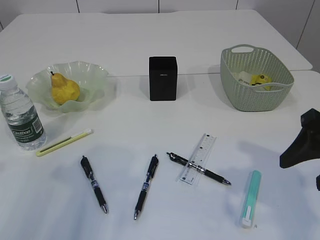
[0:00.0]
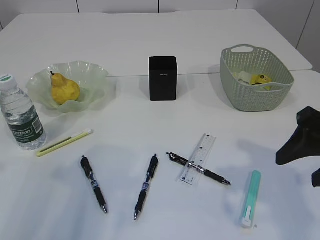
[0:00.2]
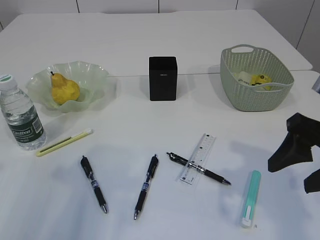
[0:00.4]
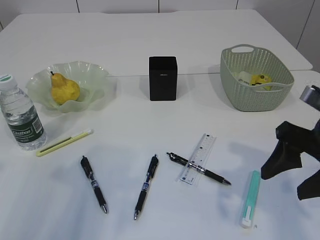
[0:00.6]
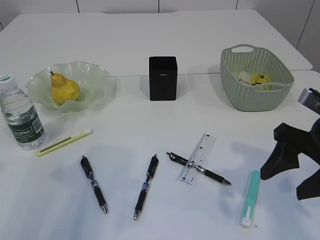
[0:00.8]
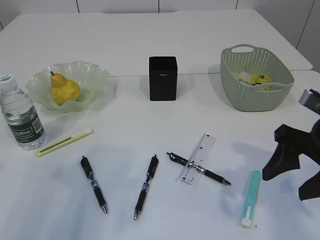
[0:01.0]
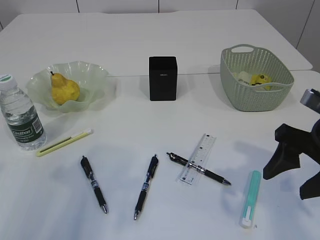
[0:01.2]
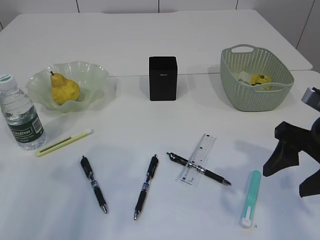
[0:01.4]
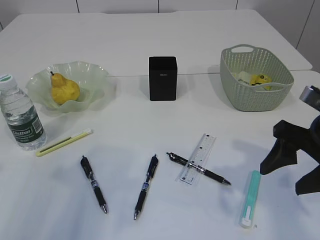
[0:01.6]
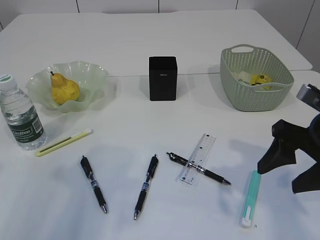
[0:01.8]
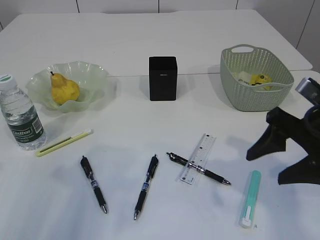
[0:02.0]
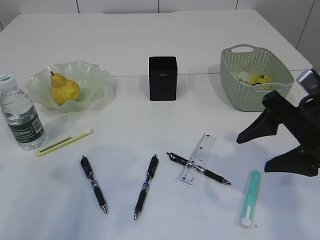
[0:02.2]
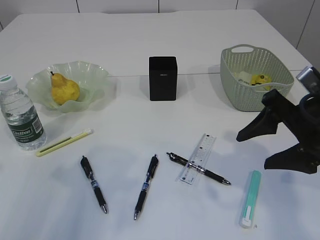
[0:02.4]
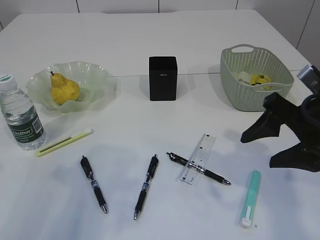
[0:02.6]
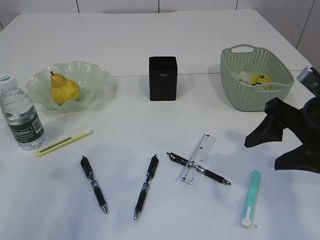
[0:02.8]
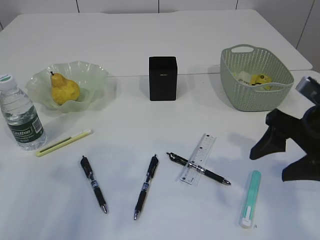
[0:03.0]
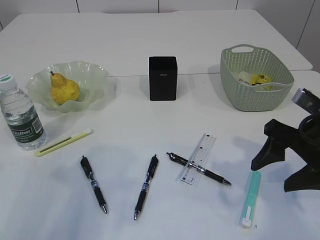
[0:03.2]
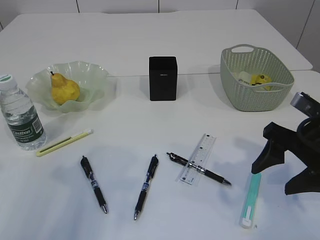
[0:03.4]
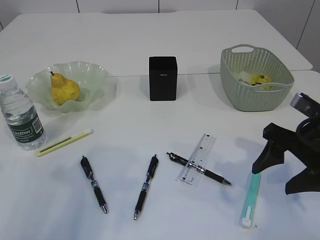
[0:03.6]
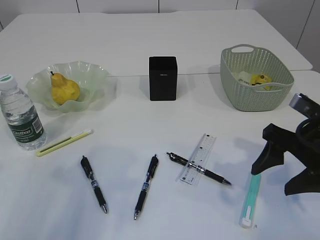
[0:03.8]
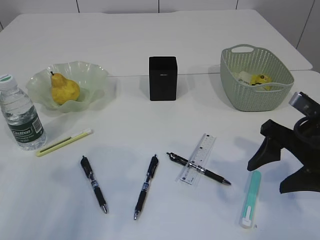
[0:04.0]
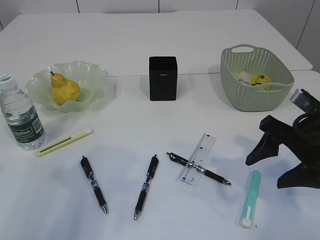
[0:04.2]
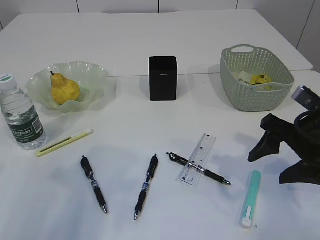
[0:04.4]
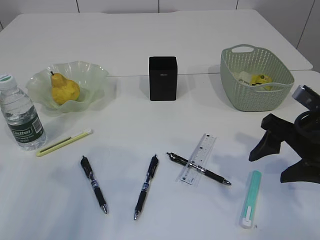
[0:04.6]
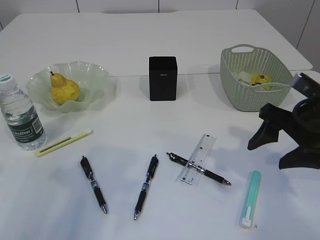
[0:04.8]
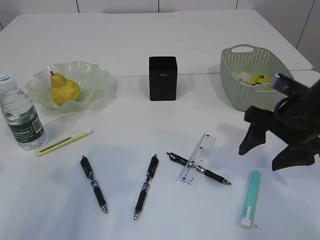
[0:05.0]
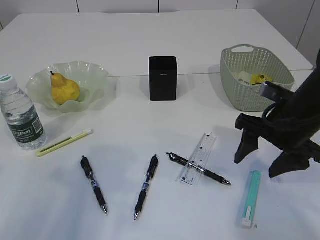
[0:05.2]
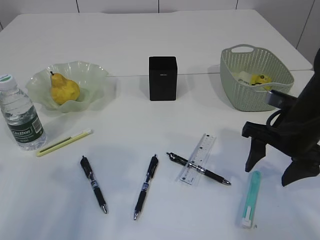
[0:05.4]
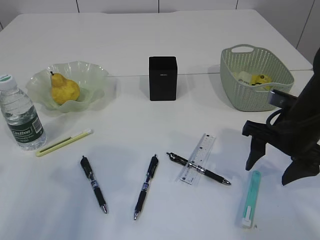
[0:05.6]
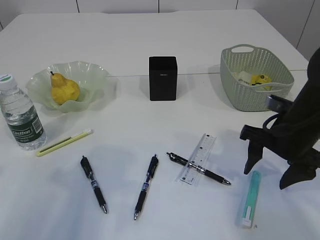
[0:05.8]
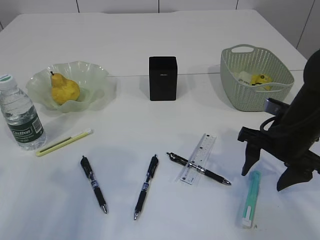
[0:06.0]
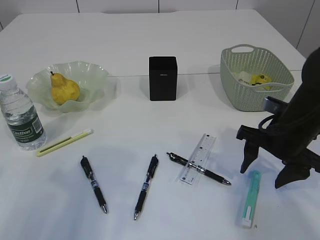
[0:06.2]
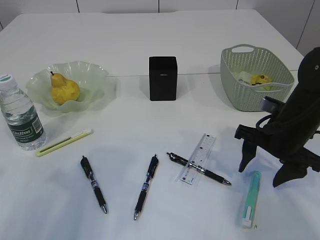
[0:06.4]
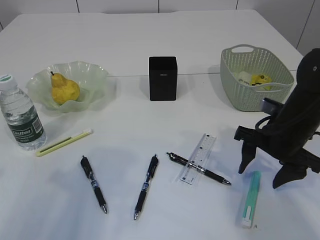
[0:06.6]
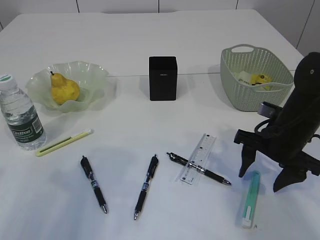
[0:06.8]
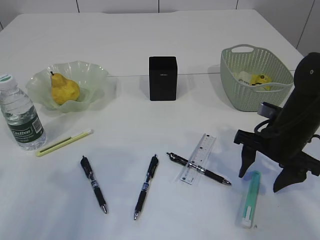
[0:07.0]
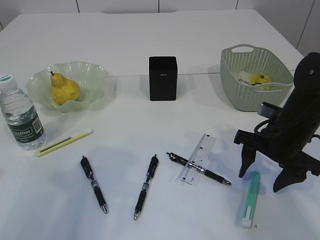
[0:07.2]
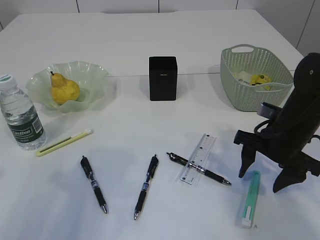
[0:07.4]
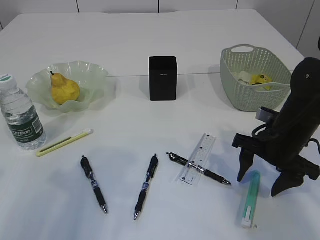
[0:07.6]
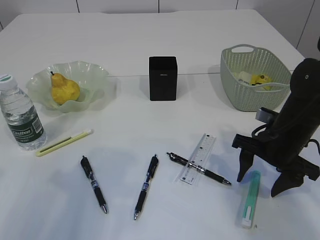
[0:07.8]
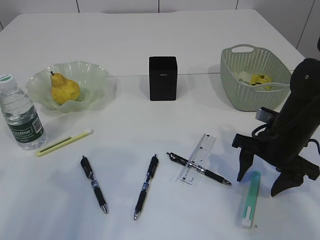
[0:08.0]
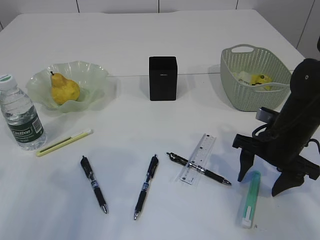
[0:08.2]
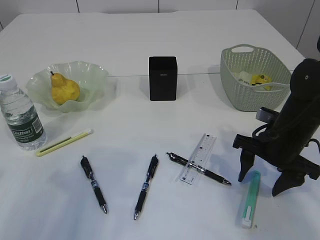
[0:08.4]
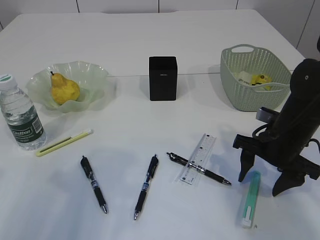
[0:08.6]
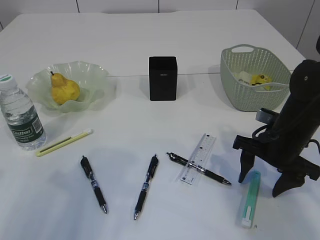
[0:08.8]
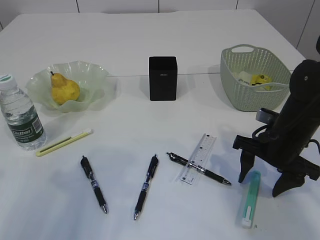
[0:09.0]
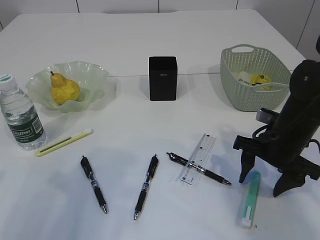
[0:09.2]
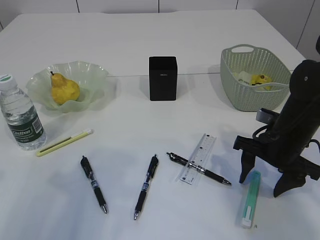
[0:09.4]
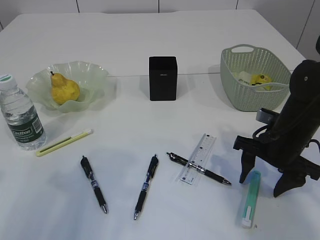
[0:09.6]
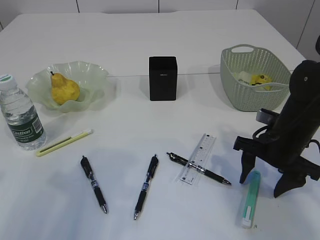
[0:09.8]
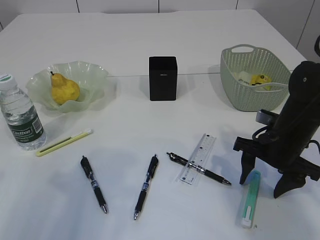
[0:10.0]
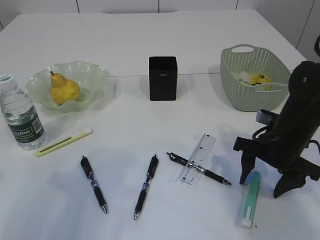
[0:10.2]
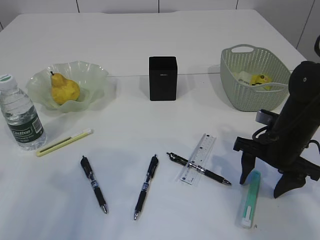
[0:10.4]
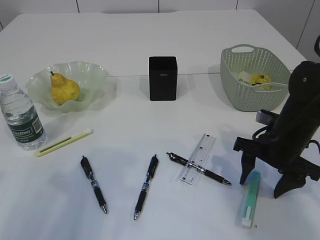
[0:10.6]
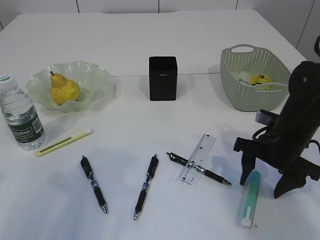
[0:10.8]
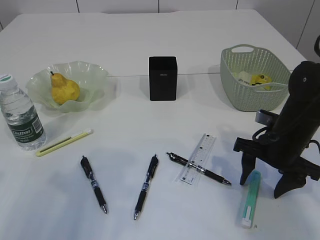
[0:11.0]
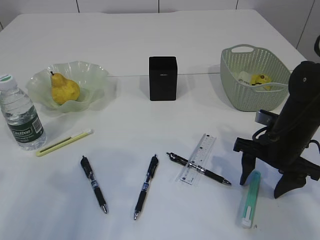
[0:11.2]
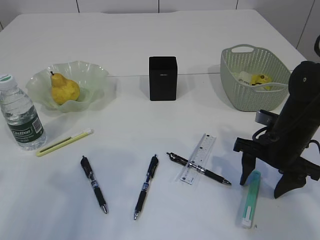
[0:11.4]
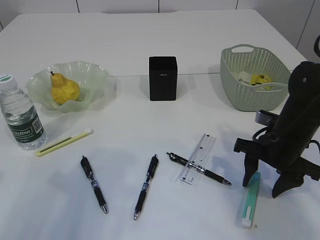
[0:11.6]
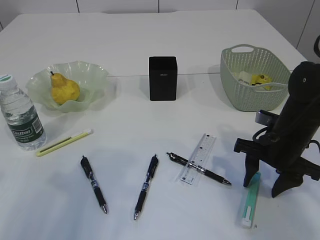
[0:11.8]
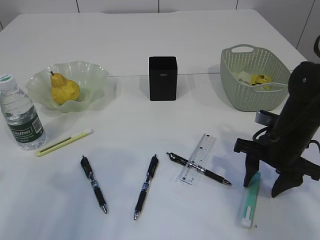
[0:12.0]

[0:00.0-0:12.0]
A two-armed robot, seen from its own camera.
0:00.0 to 0:03.0: The grippers make only small movements.
0:03.0 to 0:04.4: The grippers move only a little.
0:04.4 to 0:06.0: The right gripper moves roughly 5 cm.
0:06.0 to 0:07.6: The grippers make only small movements.
0:07.6 to 0:12.0: Both grippers stay about where they are.

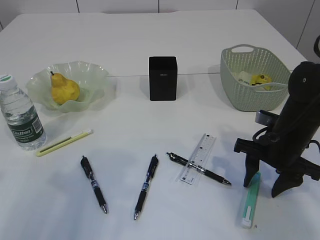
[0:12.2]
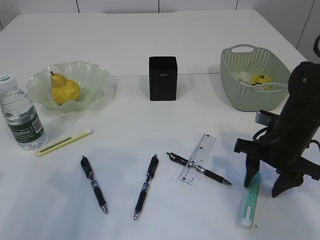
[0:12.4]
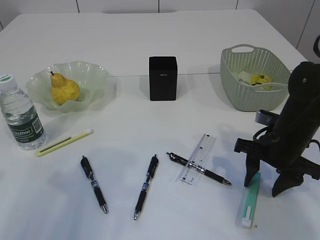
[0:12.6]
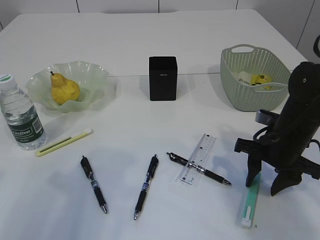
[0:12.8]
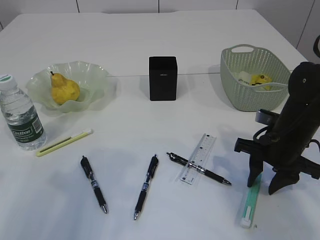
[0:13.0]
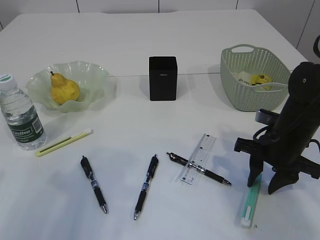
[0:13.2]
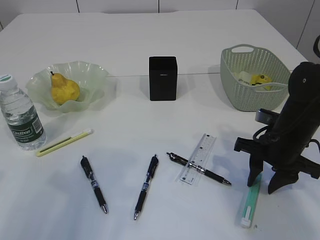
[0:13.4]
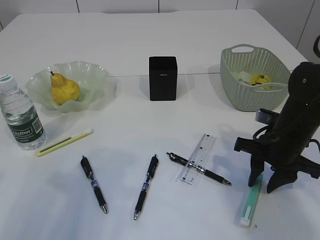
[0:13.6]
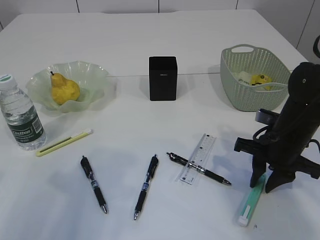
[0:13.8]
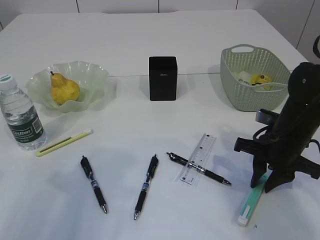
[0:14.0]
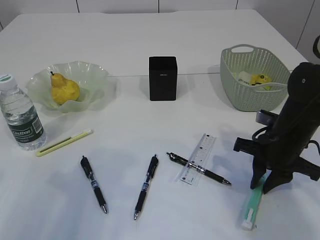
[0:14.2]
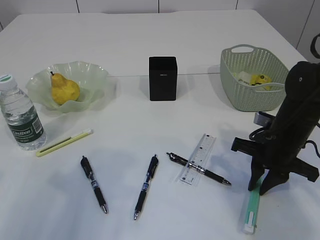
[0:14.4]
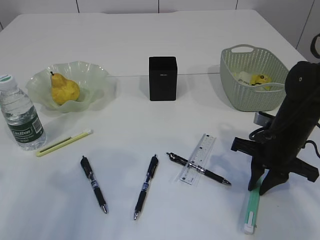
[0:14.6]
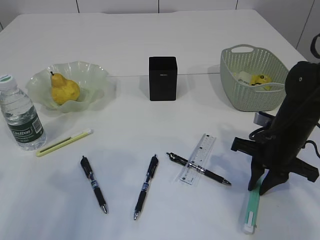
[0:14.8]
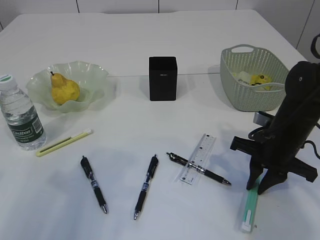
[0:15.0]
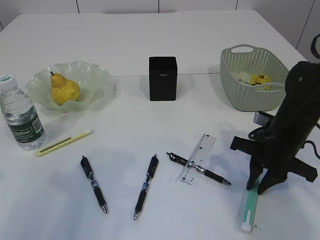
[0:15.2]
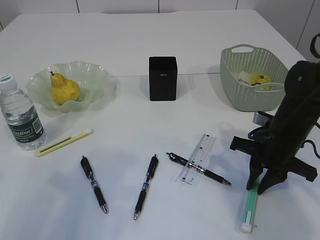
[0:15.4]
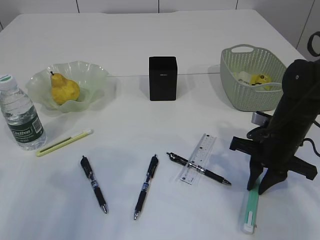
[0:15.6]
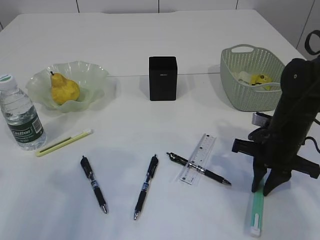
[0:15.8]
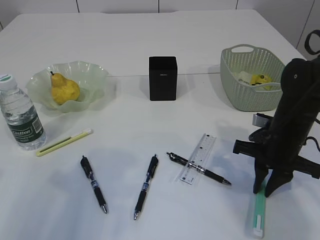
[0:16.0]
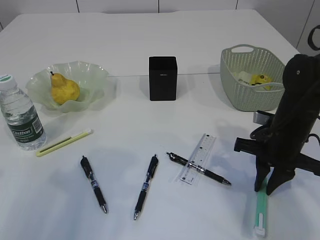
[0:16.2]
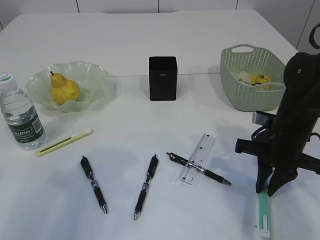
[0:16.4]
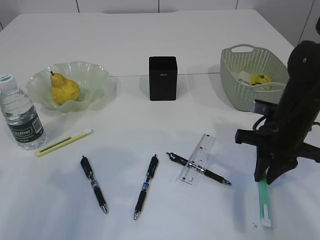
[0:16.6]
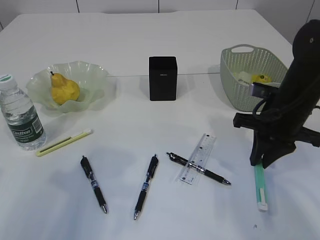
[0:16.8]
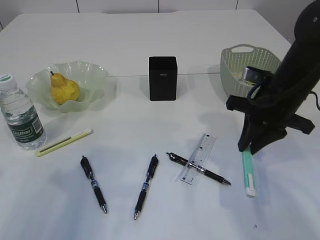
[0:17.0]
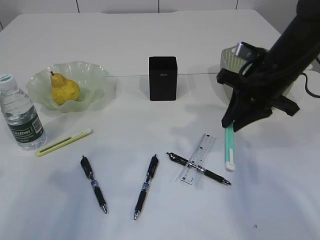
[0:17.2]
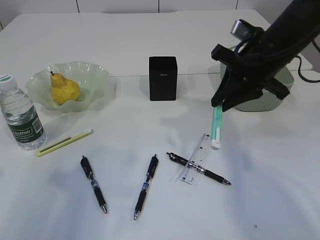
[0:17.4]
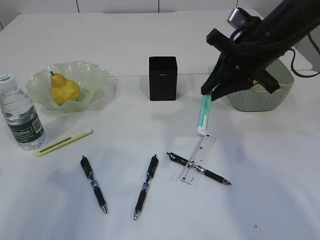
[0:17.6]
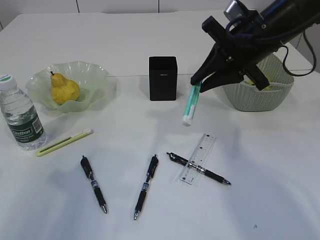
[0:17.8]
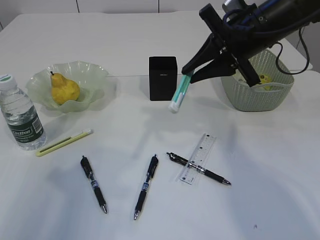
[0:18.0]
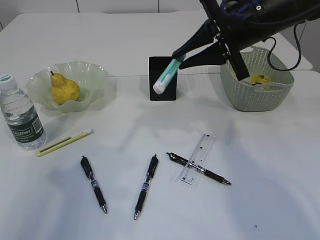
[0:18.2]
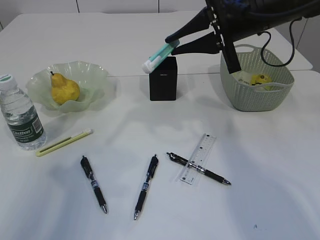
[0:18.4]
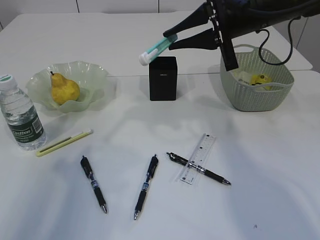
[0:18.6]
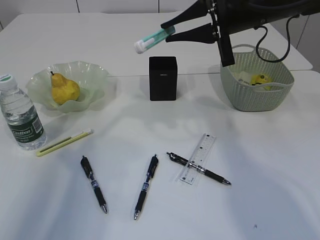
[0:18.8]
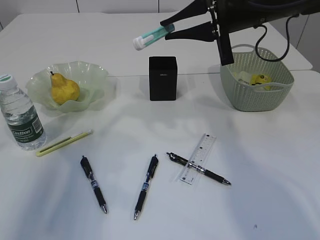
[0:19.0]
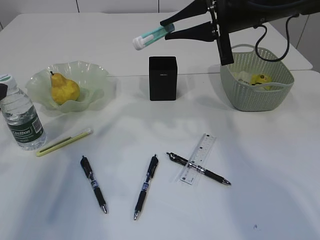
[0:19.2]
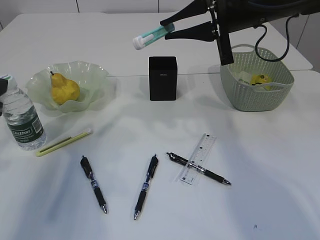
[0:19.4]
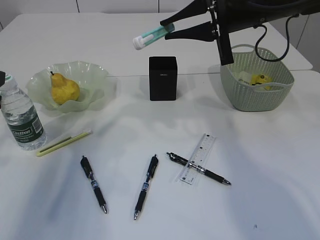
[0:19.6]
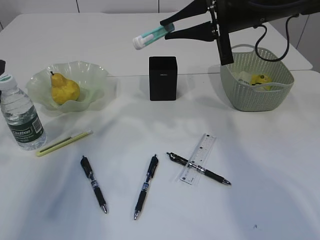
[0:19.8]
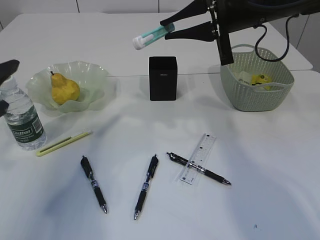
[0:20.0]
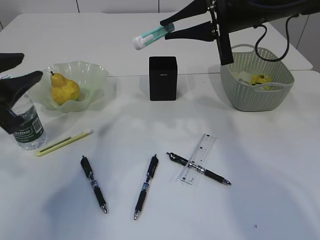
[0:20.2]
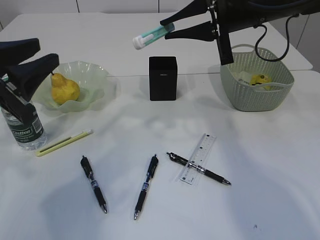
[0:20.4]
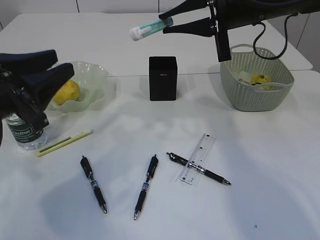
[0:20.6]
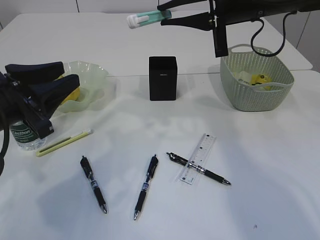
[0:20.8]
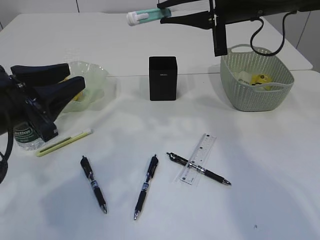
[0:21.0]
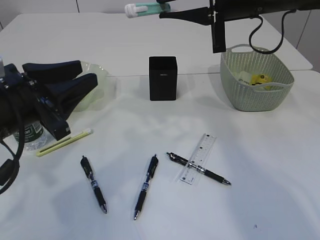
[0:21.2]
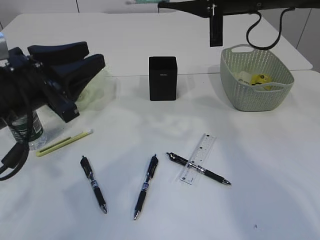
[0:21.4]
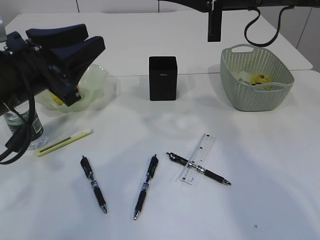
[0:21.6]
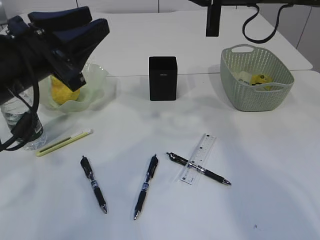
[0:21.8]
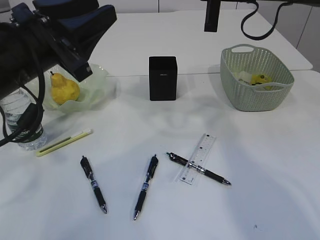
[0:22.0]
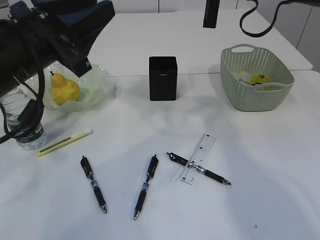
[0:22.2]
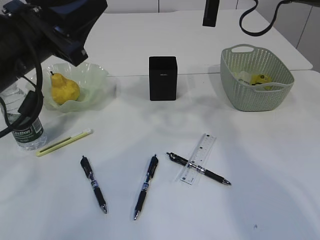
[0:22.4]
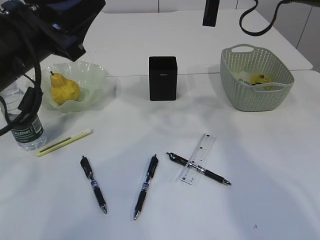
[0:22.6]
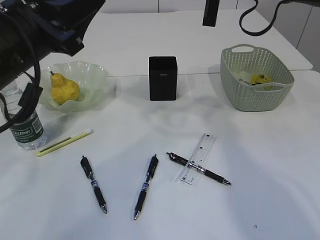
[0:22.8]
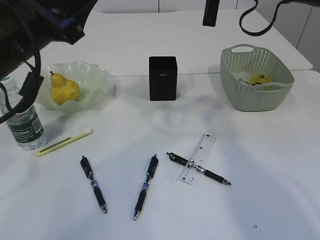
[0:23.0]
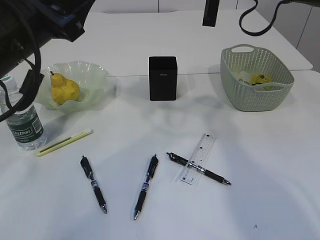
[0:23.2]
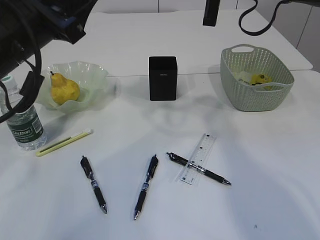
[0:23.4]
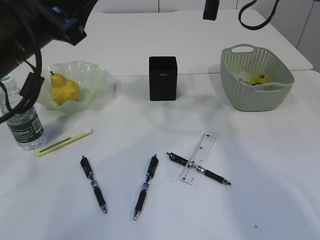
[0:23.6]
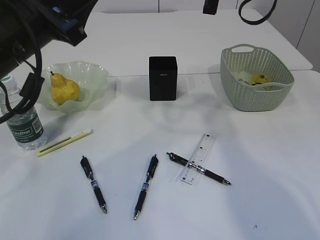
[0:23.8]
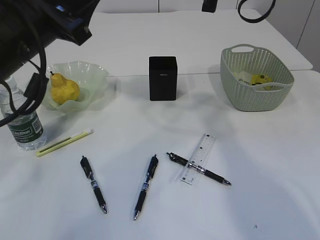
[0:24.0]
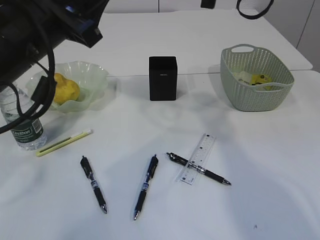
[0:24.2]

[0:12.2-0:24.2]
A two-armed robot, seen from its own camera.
Step, 0:12.2 to 0:17.4: pick up the blue knife.
0:12.2 to 0:13.8: The right gripper closes.
0:13.8 to 0:16.6: There are only small adjustments of the grippers.
0:16.6 to 0:18.2: The right gripper moves upward and to the left, approximately 15 cm.
0:18.2 to 0:19.8: The left gripper moves forward, about 10 cm.
0:19.8 to 0:21.2: The left gripper moves to the right, about 10 cm.
0:21.2 to 0:22.6: The left gripper is displaced upward by about 5 cm.
0:22.6 to 0:24.2: There are only small adjustments of the grippers.
